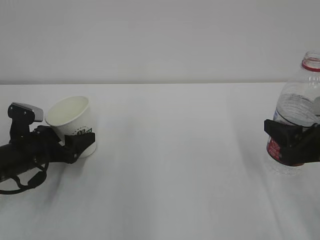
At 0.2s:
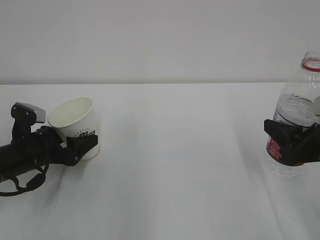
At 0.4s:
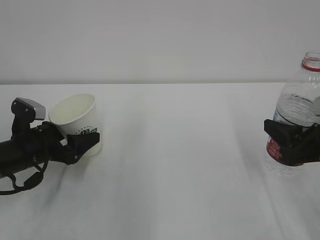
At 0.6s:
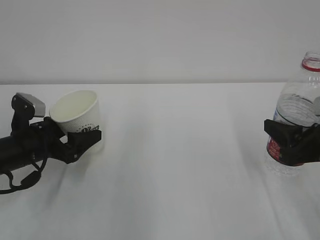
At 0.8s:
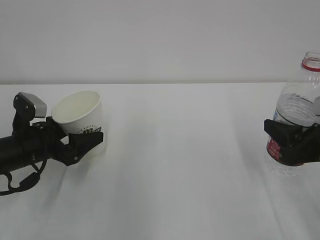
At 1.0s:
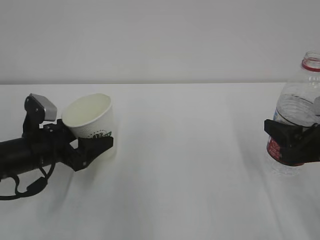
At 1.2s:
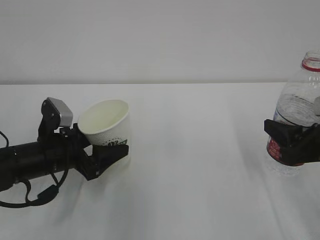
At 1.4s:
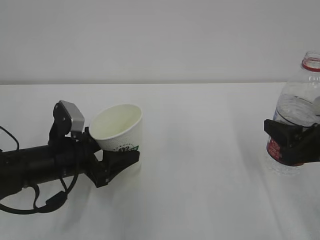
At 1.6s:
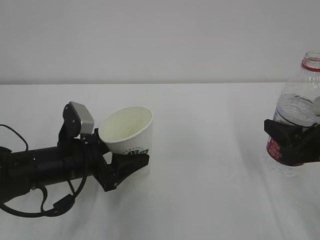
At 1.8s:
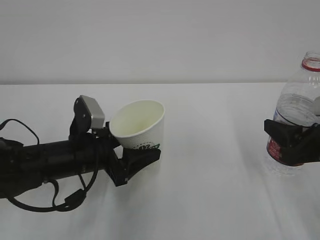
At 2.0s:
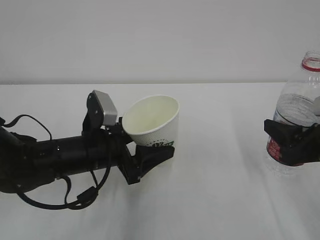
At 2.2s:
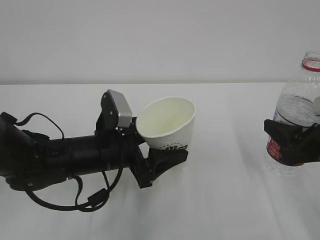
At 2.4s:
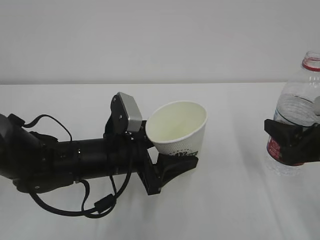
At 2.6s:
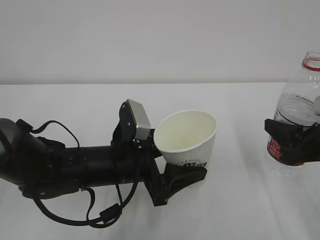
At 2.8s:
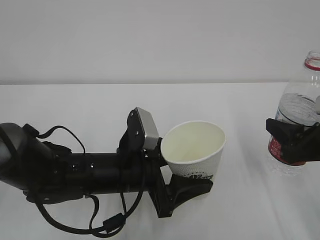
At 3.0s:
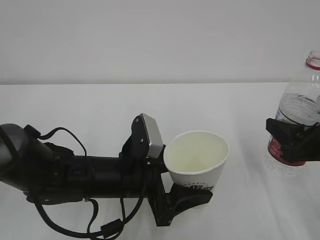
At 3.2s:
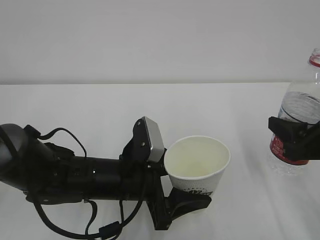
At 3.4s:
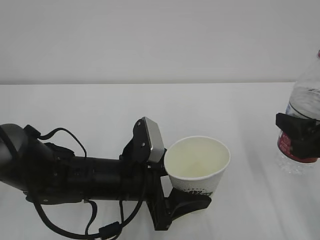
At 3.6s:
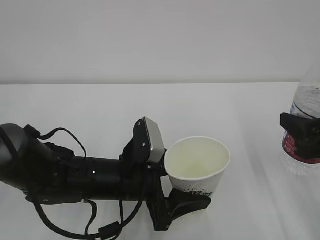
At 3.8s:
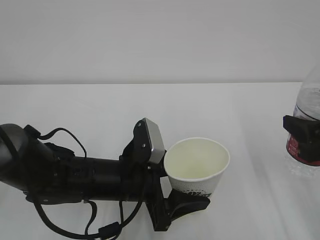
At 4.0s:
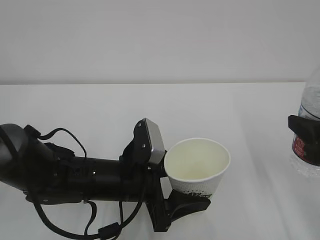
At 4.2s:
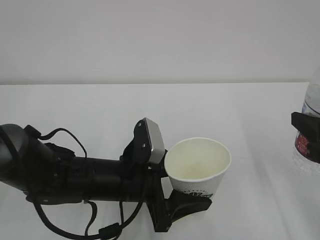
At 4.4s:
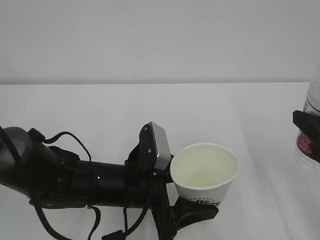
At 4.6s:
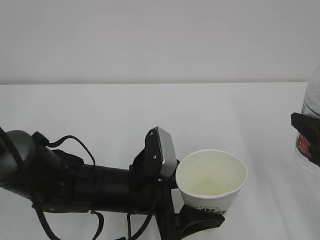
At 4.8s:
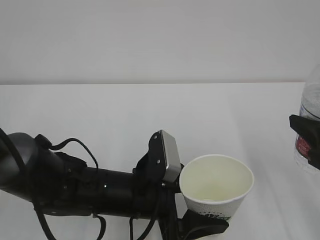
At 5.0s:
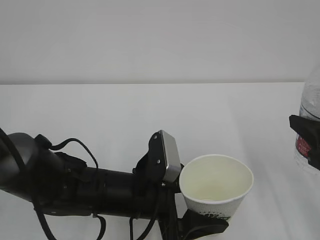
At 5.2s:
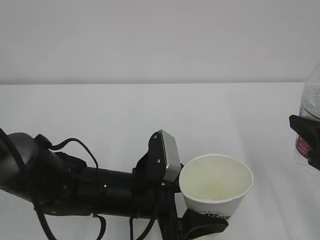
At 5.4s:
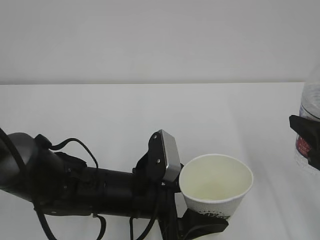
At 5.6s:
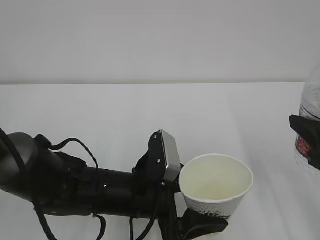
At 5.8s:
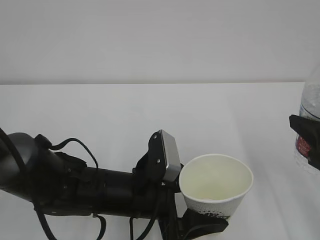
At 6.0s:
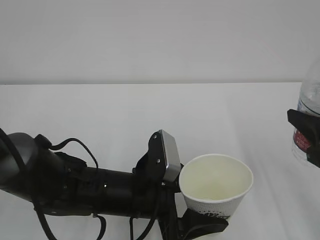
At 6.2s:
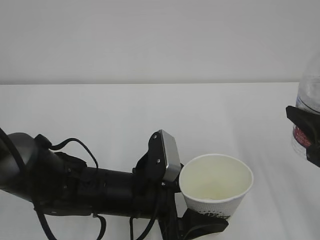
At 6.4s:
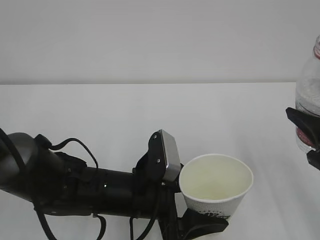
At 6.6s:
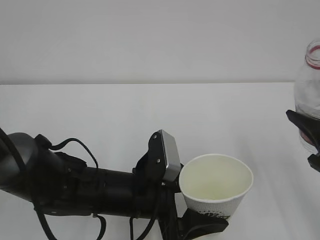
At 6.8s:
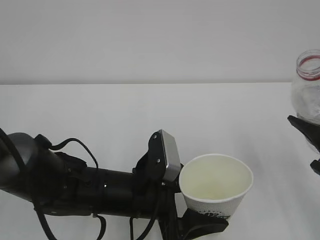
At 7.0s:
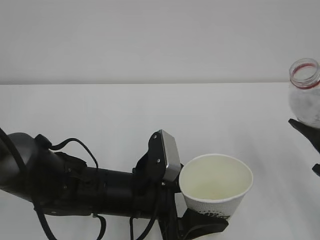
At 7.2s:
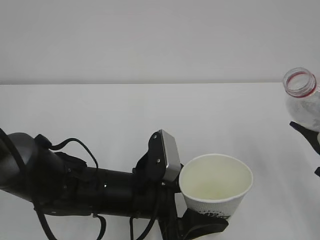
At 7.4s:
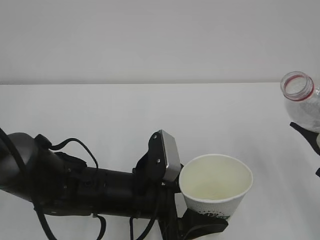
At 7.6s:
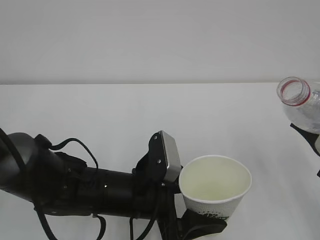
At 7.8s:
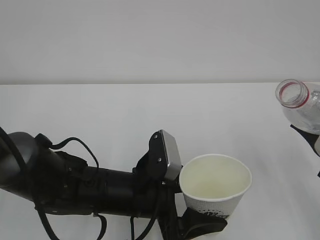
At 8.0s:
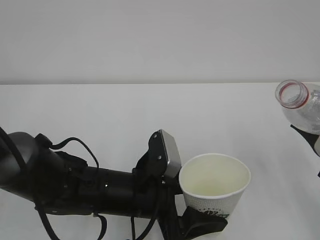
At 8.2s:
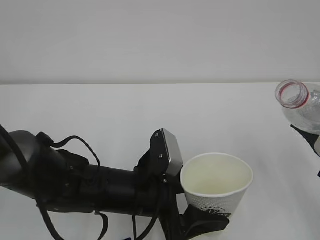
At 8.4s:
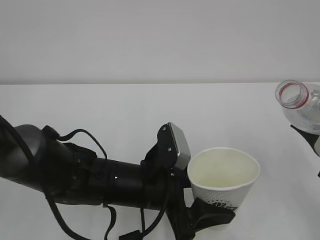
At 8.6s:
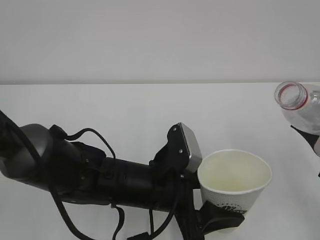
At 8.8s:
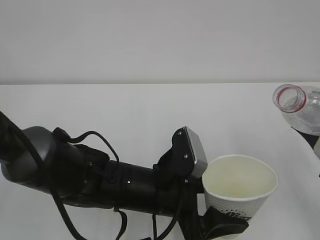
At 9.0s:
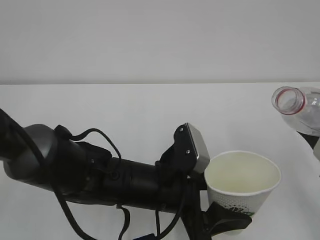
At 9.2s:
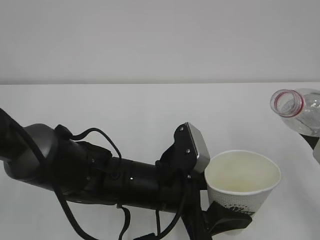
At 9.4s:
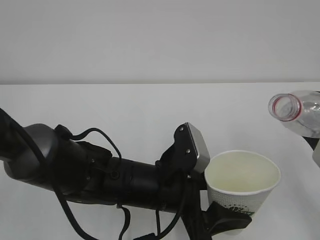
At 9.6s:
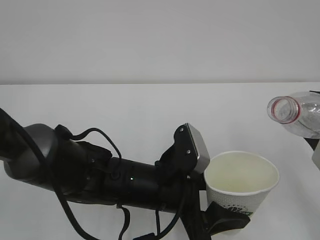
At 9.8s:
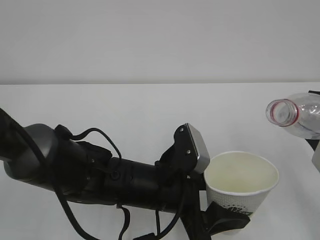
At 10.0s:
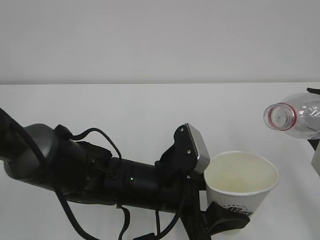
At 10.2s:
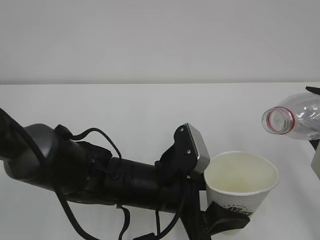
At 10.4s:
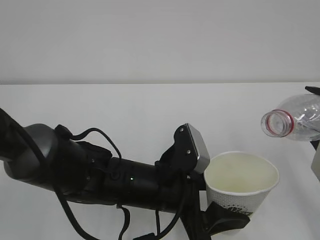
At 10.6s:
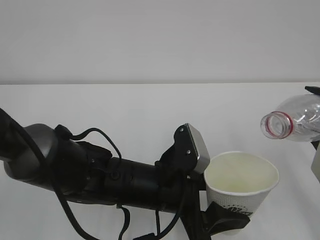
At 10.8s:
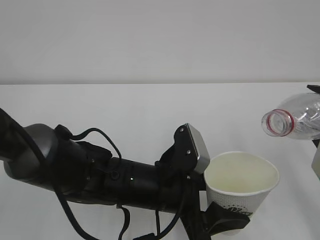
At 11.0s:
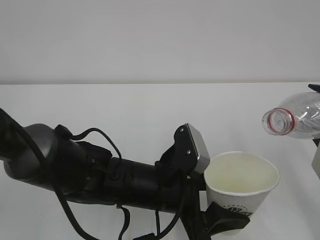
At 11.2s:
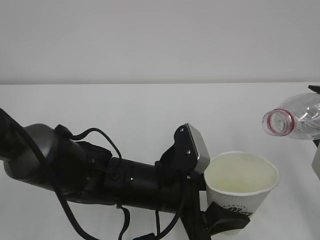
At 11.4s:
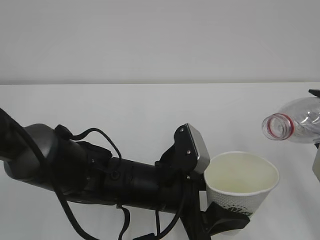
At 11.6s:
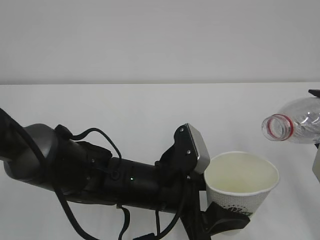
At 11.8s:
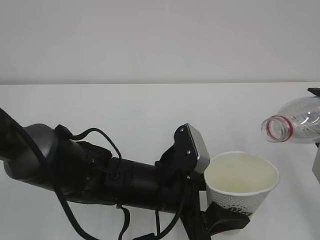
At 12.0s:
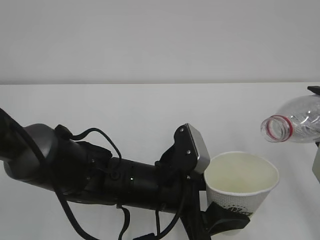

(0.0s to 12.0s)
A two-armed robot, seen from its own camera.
0.0s - 1.6s: The left gripper shifts about 10 cm to the right.
1.6s - 3.0s: The left gripper moves to the right, about 10 cm.
3.0s - 4.4s: The right gripper shifts by roughly 5 cm.
4.4s - 6.0s: The grippers make only small movements.
7.6s - 9.0s: The grippers make only small movements.
9.0s - 10.4s: The grippers stay close to where they were, moving slightly.
10.4s - 12.0s: The grippers make only small movements.

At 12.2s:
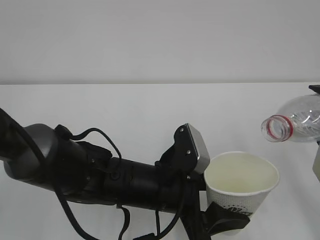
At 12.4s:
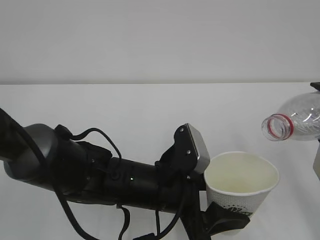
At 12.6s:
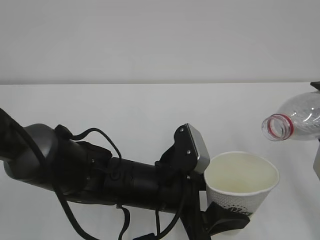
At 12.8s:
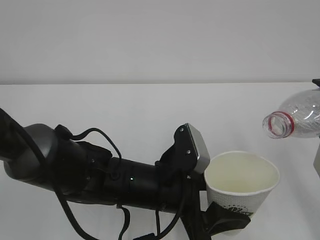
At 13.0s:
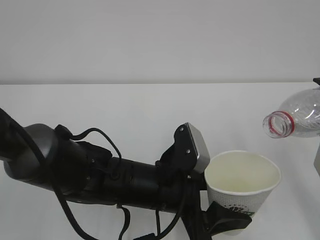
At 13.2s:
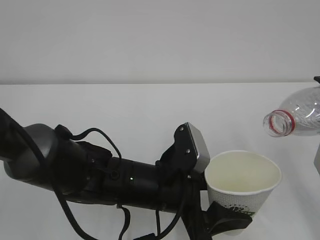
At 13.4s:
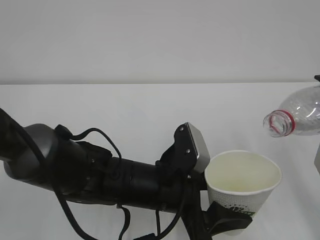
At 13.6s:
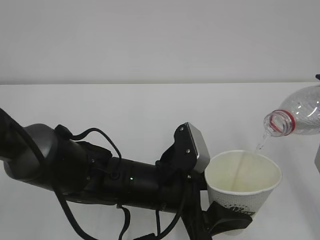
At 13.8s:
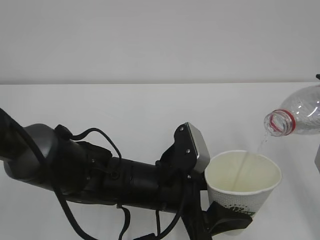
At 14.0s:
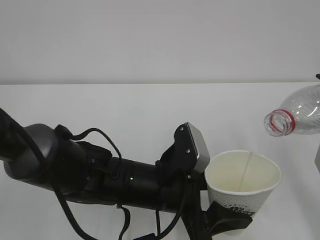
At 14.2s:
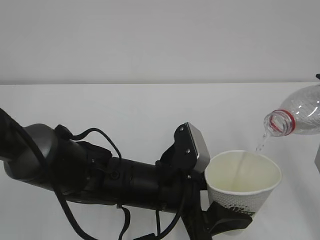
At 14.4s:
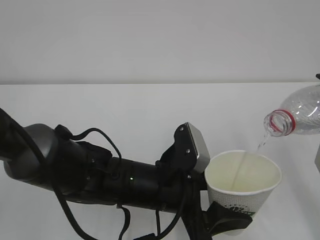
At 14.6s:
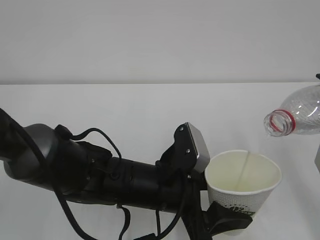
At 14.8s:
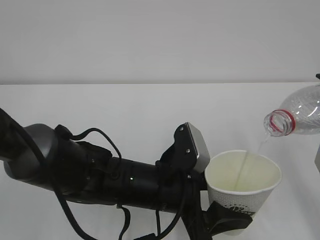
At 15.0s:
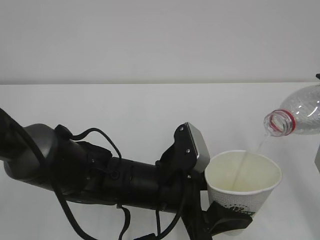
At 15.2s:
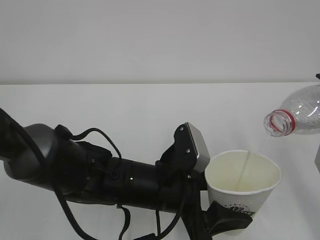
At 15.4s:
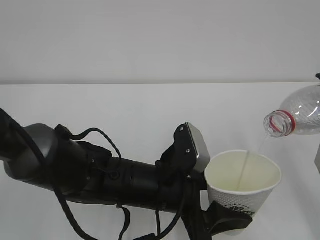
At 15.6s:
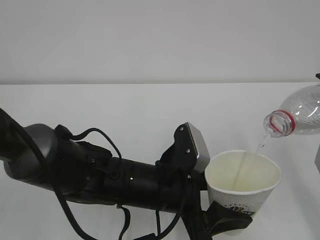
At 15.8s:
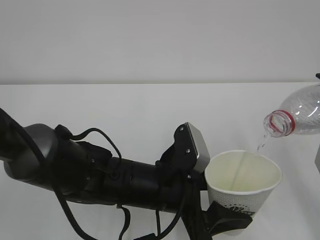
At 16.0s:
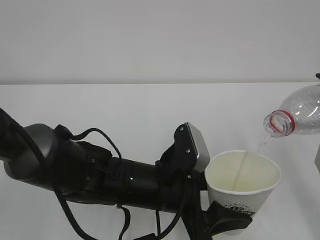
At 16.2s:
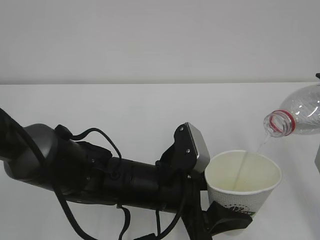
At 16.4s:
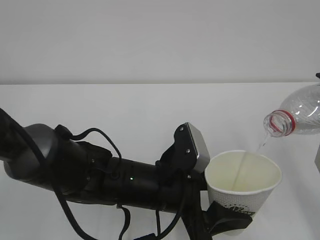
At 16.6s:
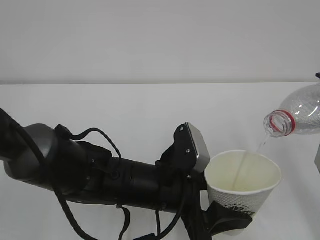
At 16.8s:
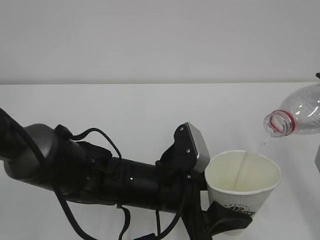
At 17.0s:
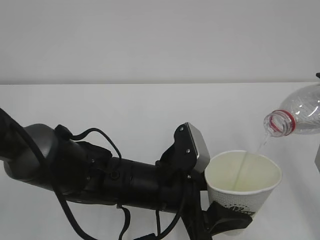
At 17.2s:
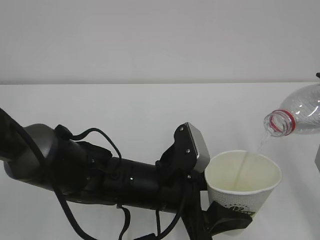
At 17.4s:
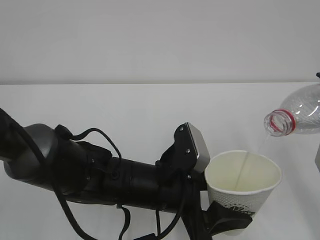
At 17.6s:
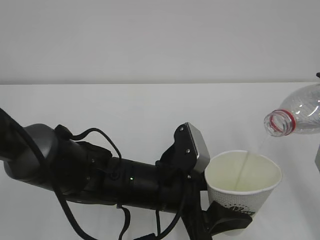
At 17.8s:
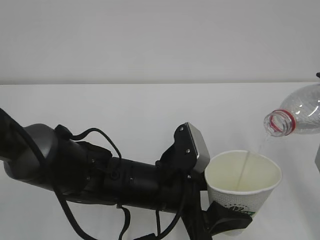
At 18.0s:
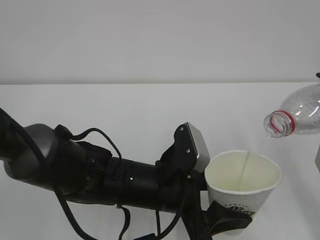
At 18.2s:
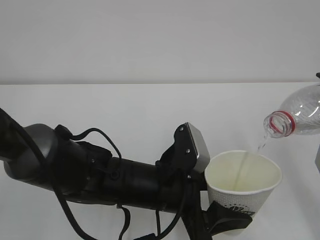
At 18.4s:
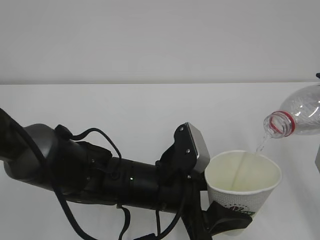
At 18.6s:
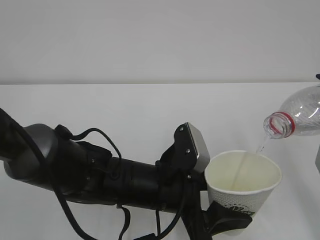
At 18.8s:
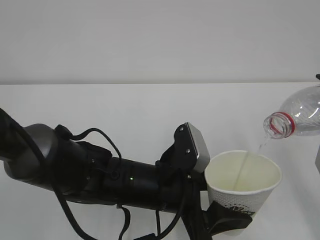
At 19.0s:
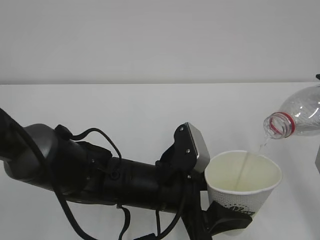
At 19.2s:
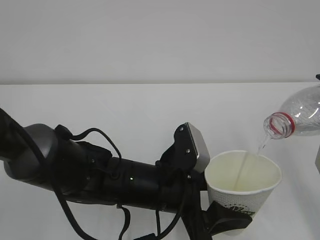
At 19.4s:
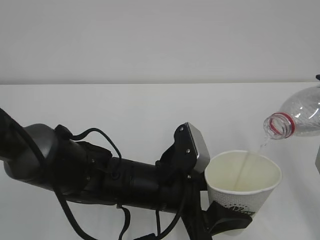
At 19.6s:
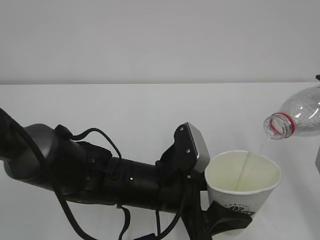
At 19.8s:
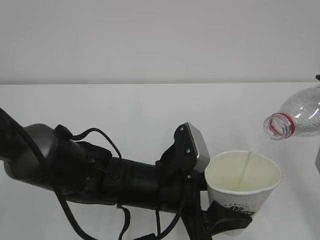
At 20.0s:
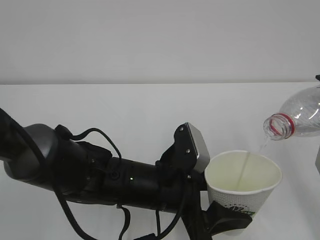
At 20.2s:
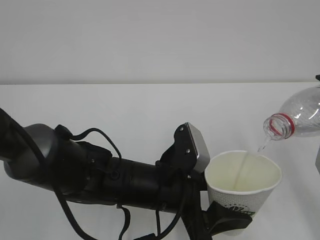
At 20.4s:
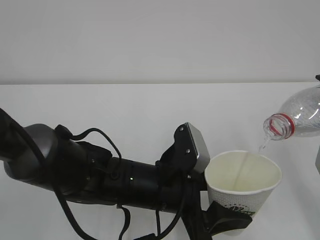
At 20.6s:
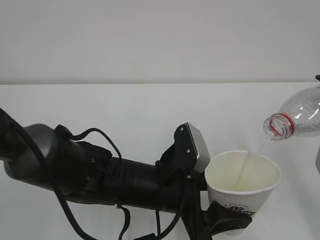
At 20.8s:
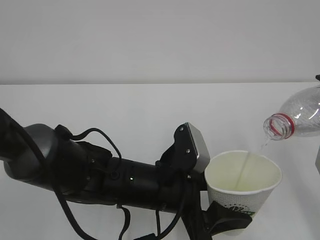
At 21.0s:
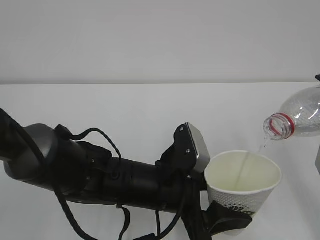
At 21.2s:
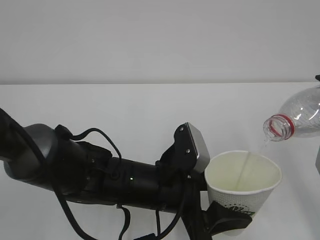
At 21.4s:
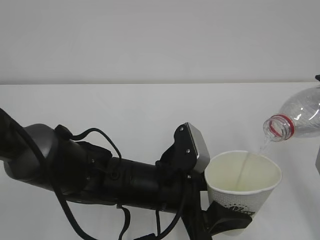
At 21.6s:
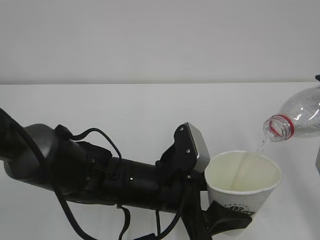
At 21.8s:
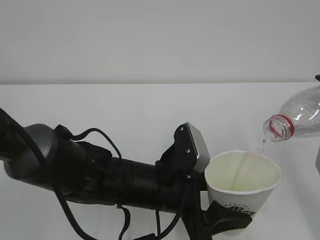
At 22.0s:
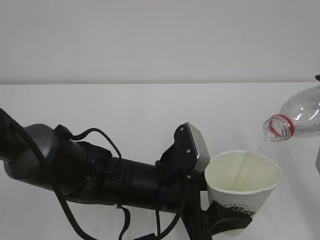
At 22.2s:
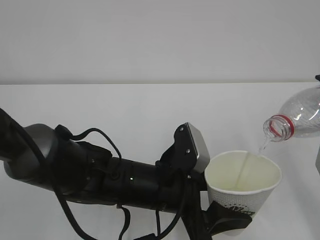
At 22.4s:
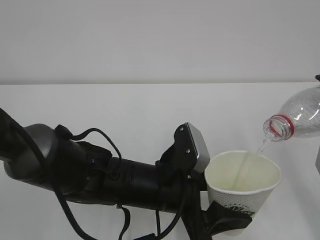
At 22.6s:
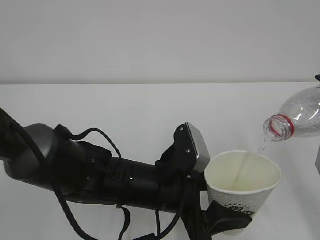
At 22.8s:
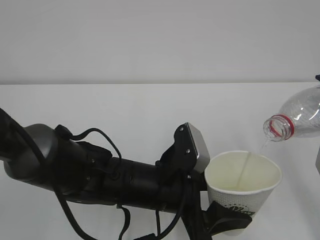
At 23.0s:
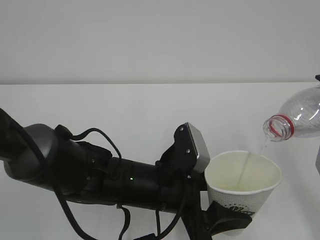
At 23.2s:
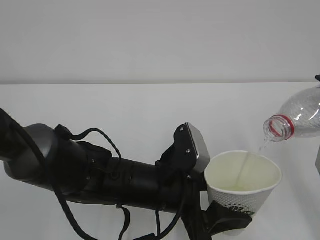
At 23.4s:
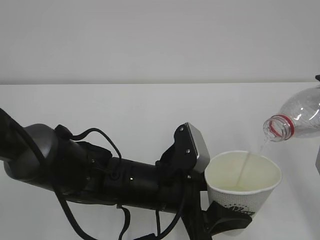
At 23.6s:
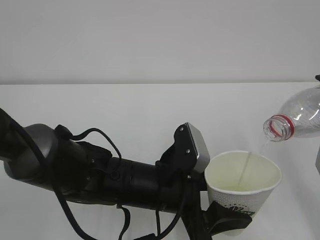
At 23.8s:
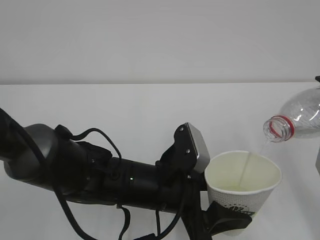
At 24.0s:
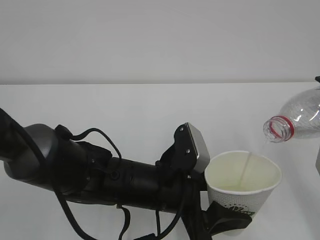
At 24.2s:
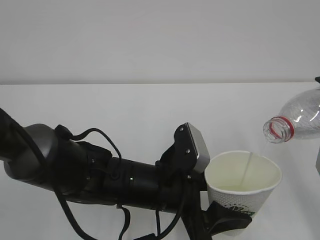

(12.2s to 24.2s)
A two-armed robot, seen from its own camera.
12.2s - 13.8s: The grippers stay close to where they were, moving slightly.
13.8s - 24.2s: Both grippers stay about where they are.
